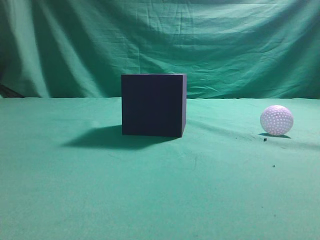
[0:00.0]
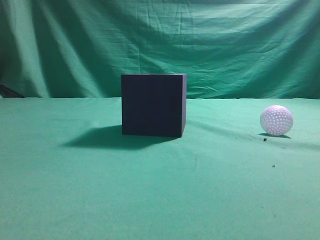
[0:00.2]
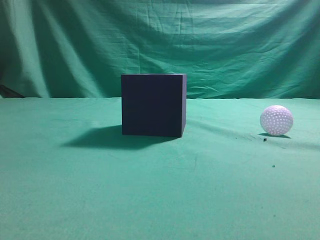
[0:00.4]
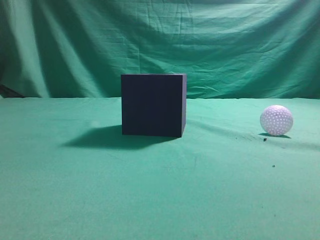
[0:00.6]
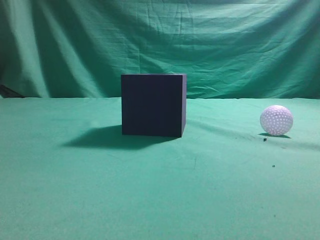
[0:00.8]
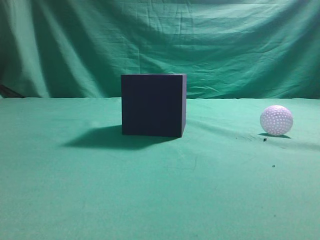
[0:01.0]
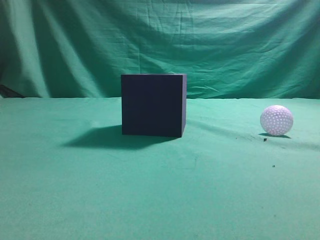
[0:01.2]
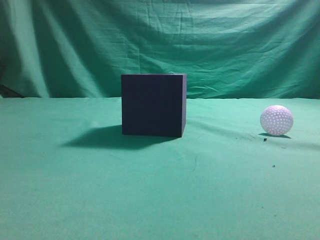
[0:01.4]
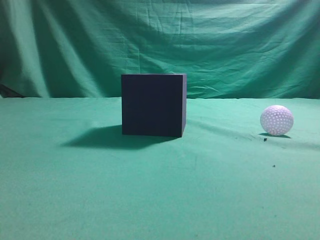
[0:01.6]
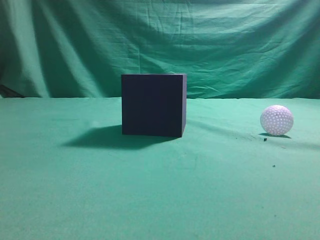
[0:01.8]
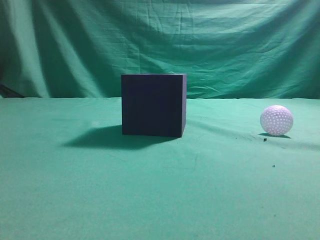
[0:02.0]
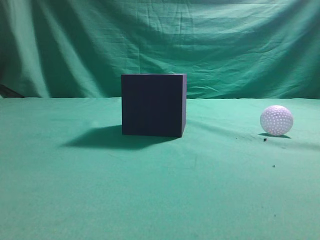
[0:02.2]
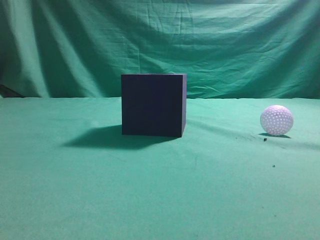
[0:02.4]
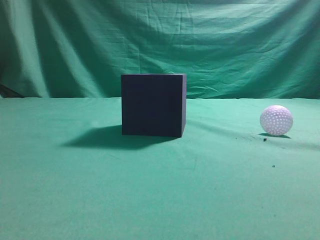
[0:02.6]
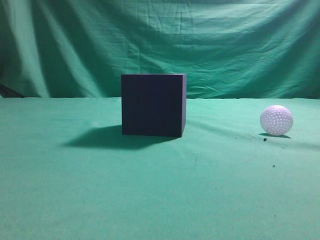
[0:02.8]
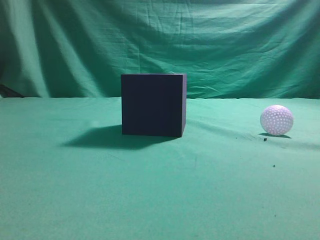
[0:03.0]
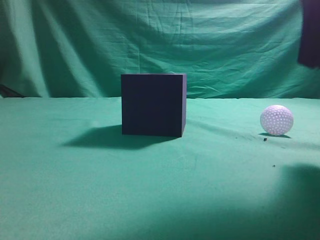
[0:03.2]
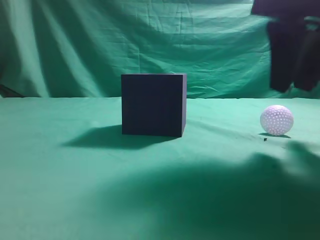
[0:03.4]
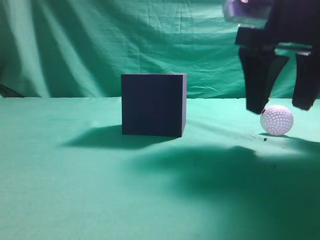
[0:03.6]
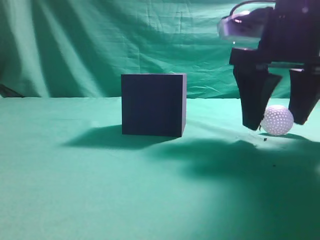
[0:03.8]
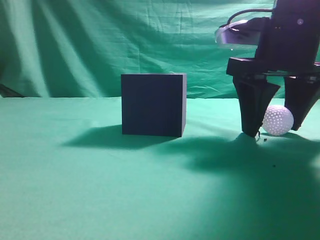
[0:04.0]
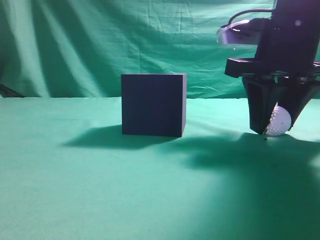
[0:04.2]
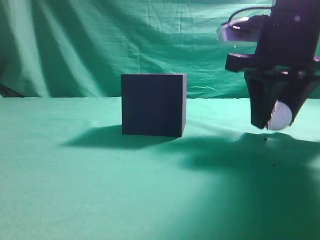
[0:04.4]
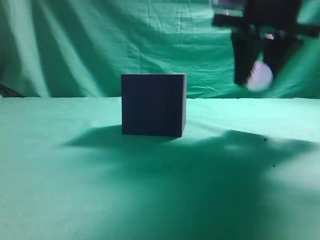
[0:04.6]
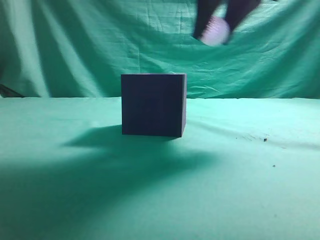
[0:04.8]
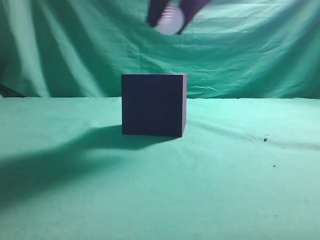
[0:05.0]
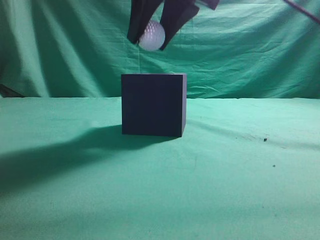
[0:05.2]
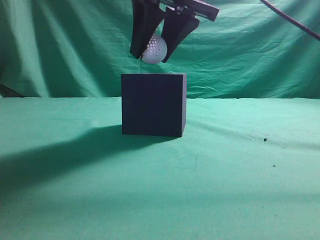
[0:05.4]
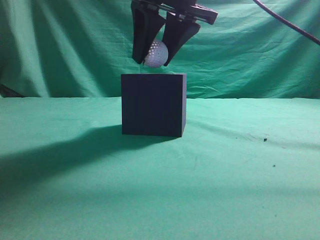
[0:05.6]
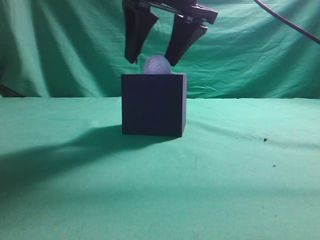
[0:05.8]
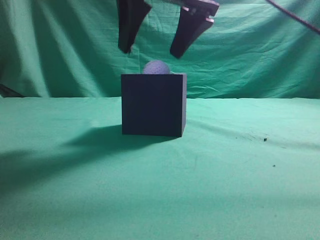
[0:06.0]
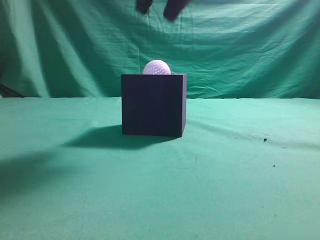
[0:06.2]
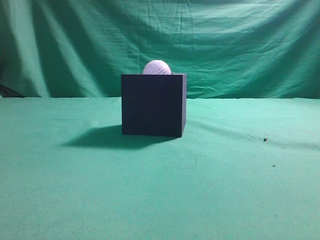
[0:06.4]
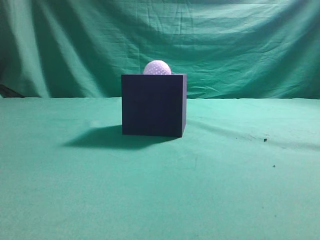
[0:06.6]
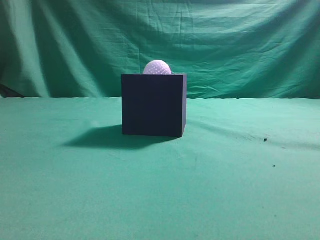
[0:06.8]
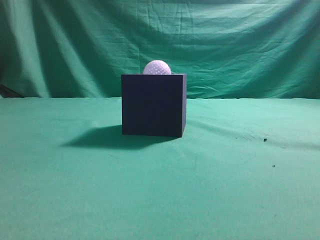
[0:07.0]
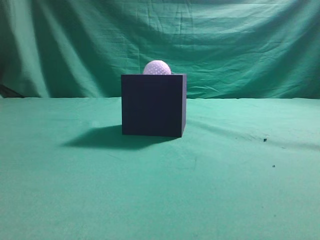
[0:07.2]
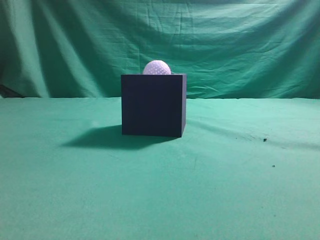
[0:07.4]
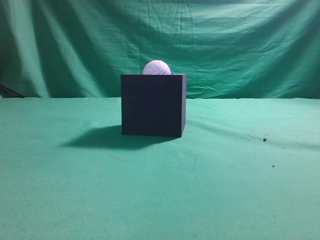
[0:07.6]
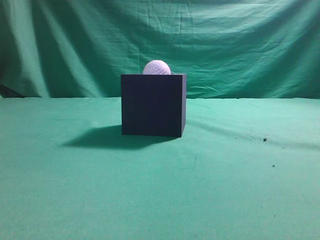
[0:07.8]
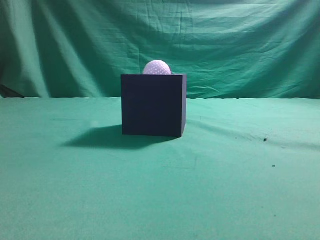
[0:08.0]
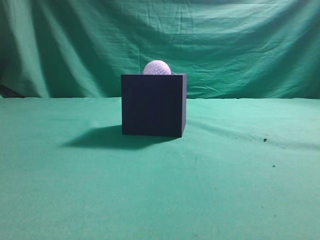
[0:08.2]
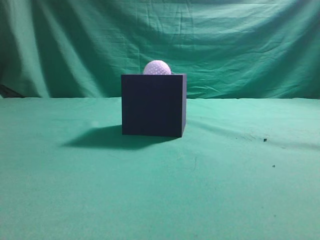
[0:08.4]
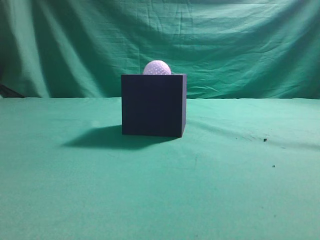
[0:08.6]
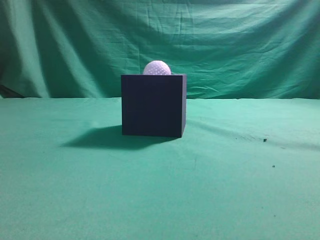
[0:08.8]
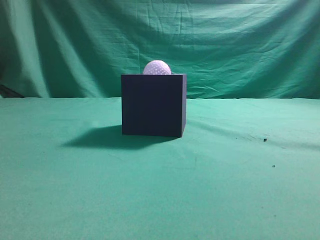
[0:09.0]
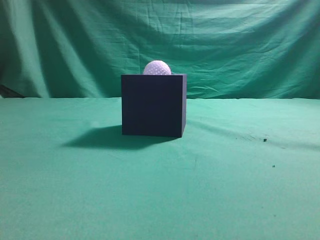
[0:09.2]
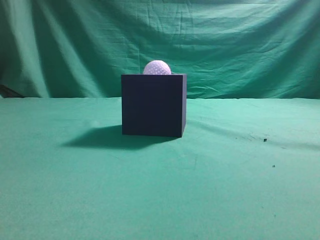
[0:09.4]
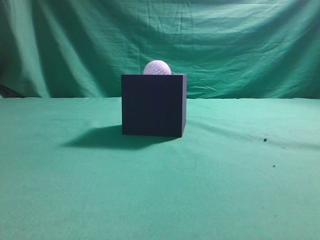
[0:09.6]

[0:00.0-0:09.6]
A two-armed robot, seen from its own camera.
Task of the whole recording: Pick up the ball and place it in the circular groove above the cube.
Step, 0:00.0 to 0:04.6: Grasp the sphere on the table.
Step, 0:04.8 to 0:06.0: Place the sphere into the sphere-shaped recess.
0:01.6 to 0:03.2: The right gripper is displaced forward and to the left by approximately 20 cm.
0:03.2 to 0:04.8: The right gripper is displaced forward and to the left by approximately 10 cm, travels downward and back again, some 5 cm each way, and opens.
0:04.8 to 0:06.4: The right gripper travels upward and backward by roughly 10 cm, and closes its fingers.
